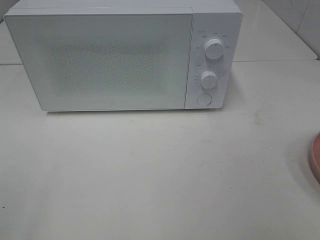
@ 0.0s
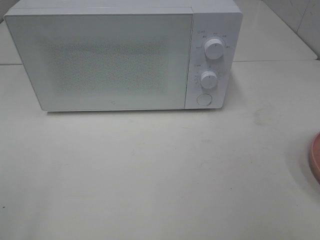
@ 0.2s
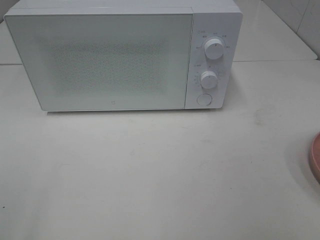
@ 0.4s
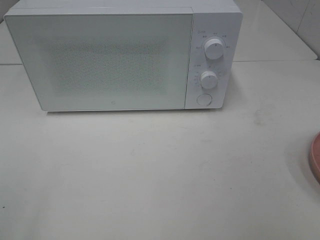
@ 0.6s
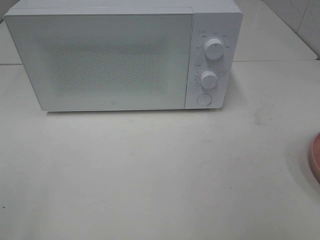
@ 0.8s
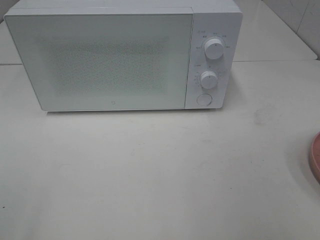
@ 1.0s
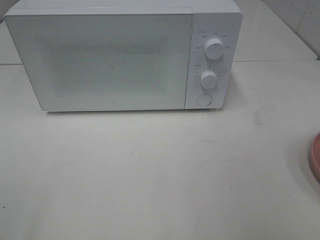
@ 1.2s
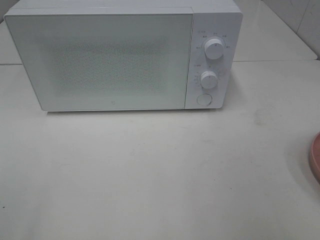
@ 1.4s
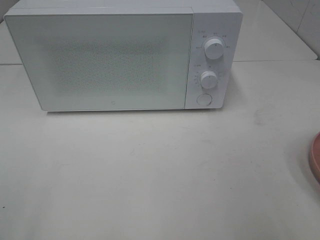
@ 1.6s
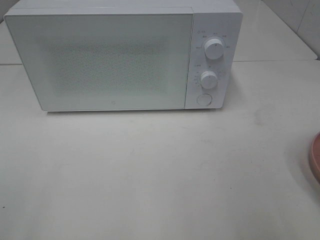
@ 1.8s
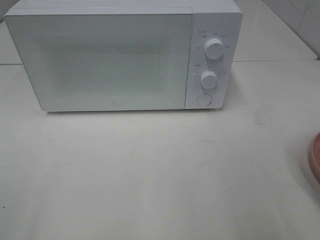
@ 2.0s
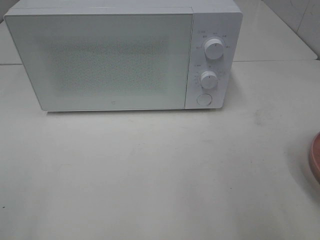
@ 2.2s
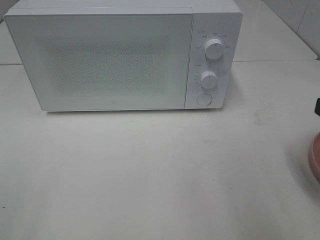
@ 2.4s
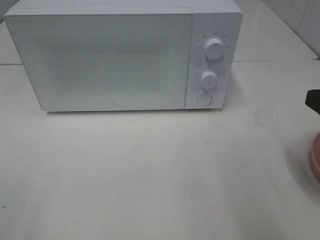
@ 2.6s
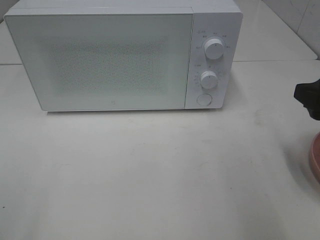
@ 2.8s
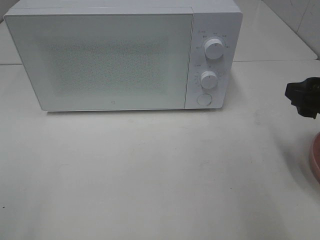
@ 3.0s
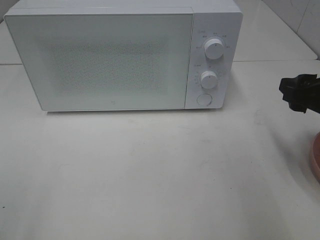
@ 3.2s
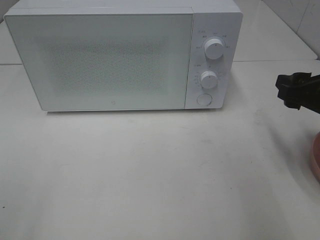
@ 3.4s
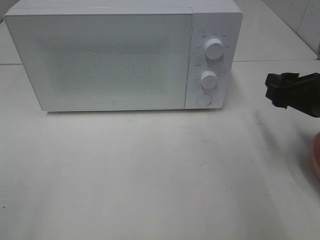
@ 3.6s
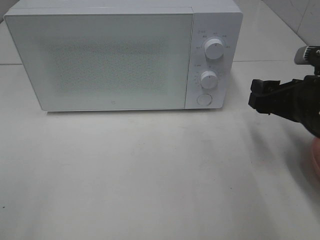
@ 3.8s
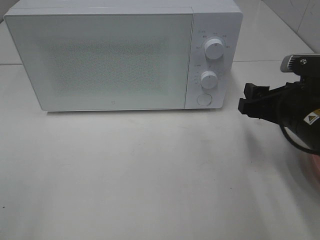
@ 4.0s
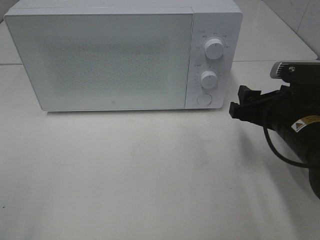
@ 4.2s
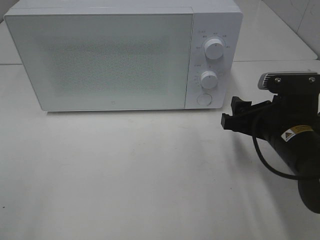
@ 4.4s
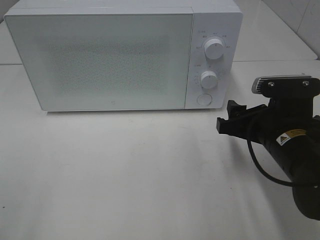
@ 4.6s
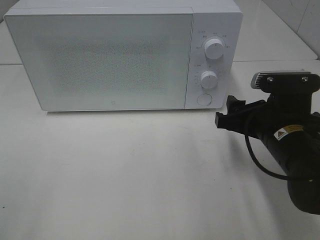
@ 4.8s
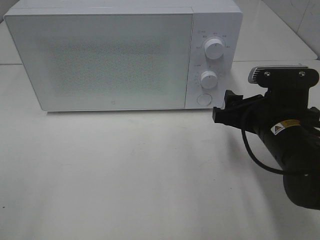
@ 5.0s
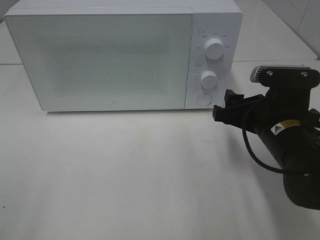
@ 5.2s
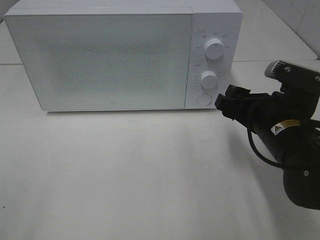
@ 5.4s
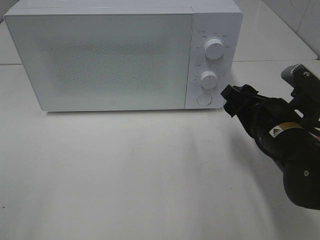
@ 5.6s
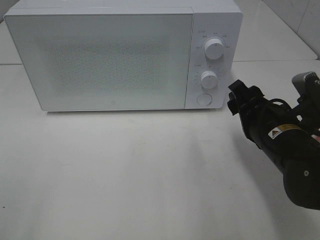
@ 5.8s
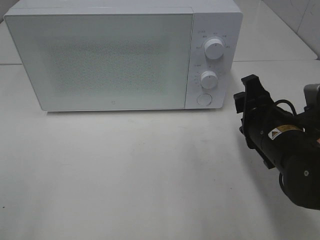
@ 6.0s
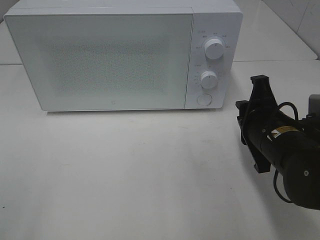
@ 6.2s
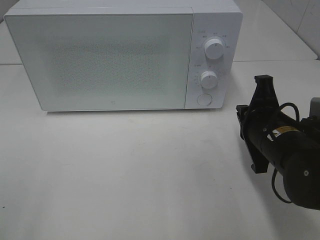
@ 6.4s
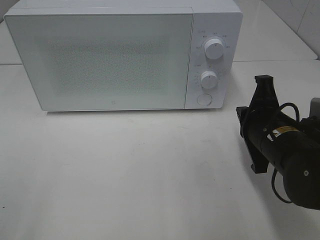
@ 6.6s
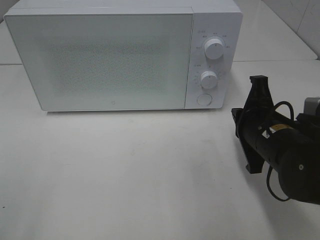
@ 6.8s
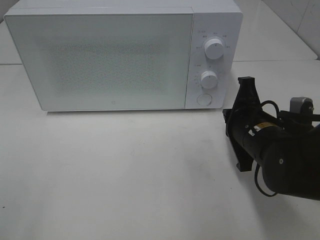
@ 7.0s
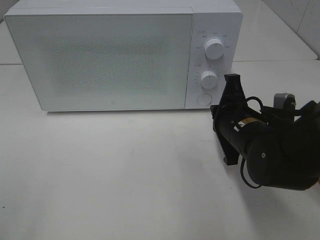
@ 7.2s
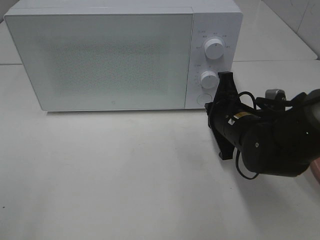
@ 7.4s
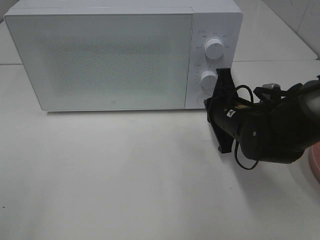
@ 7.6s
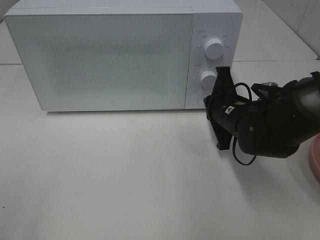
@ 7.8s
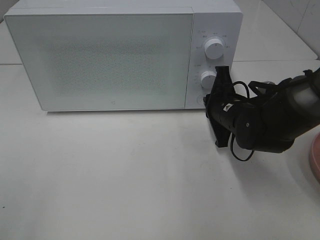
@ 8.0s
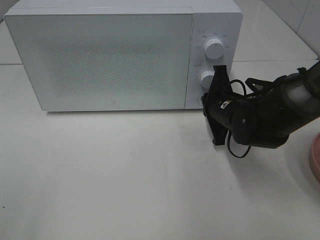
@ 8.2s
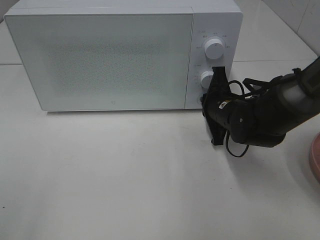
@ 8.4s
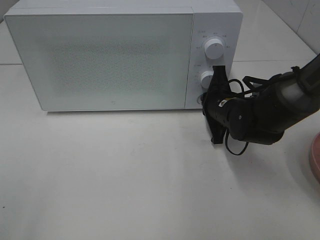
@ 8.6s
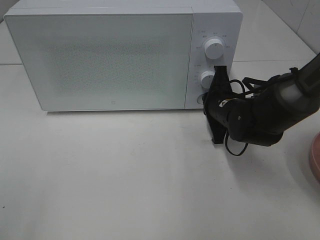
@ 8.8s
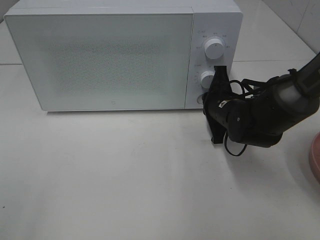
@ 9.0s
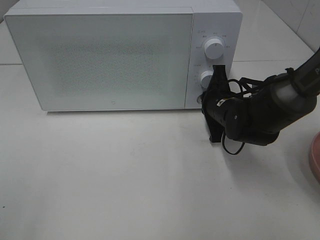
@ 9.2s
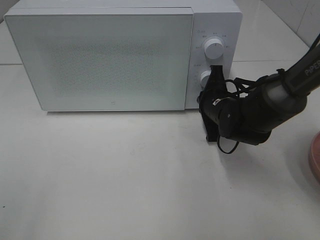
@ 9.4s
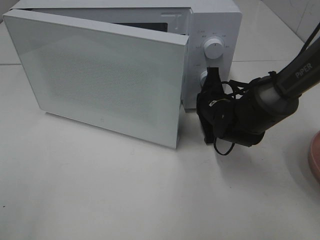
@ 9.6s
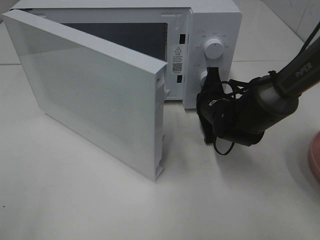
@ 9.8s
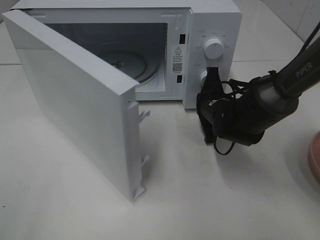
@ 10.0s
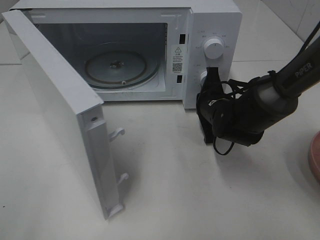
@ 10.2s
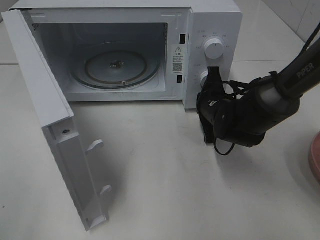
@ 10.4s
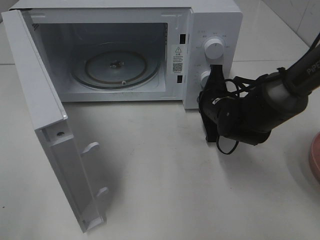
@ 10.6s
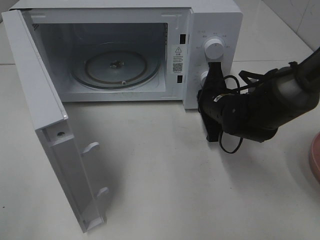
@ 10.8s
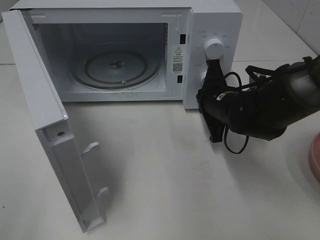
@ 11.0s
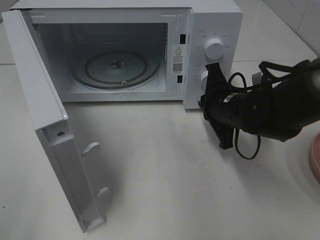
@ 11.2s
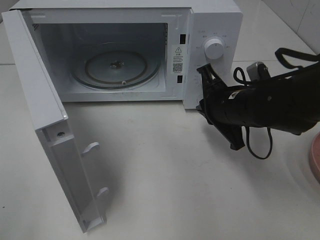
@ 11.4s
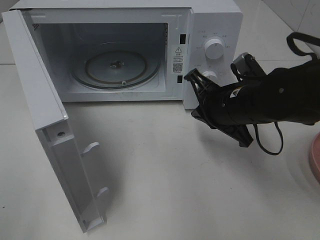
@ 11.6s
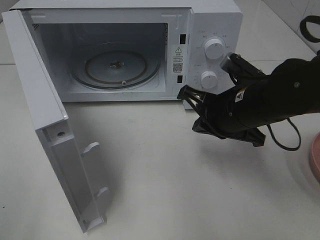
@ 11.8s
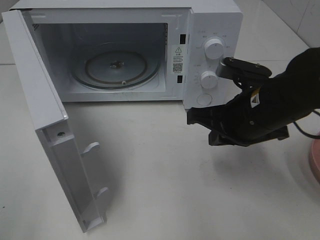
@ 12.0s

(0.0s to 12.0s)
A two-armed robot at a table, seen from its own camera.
Task of the whole recording: Heat the burger.
Step, 0.0s - 11.0s: Right hand: press the switch.
1.6s - 3.0s: The right gripper moves forward and downward, some 15 cm.
3.0s - 4.4s: The right gripper is displaced to the left and downward by approximately 10 cm.
6.0s - 7.6s: The right gripper moves forward, about 5 cm, and closes its fingers.
7.6s - 9.0s: The grippers move only a little.
10.4s - 12.0s: The right gripper heads backward and upward, covering about 15 cm.

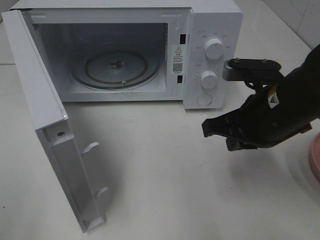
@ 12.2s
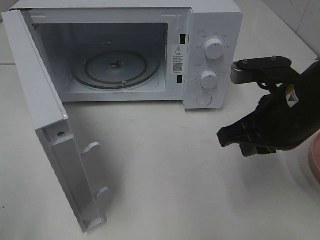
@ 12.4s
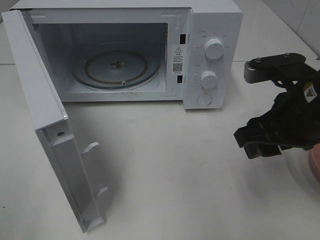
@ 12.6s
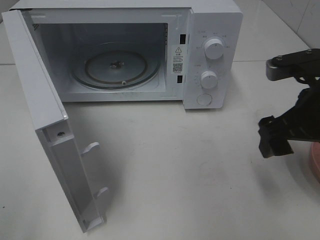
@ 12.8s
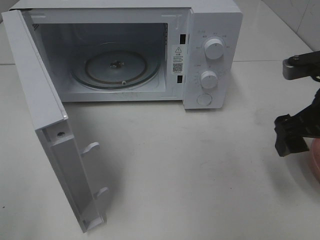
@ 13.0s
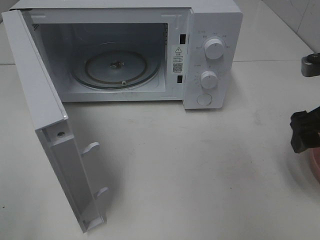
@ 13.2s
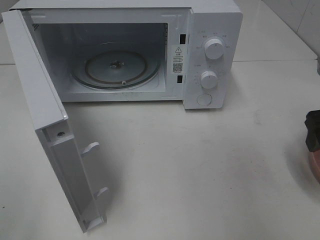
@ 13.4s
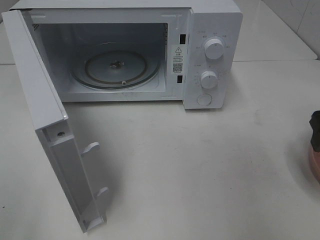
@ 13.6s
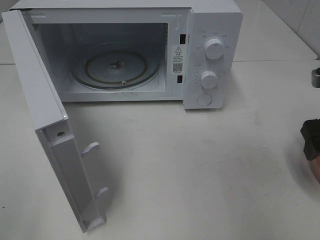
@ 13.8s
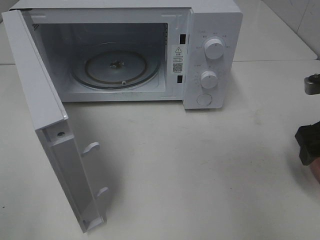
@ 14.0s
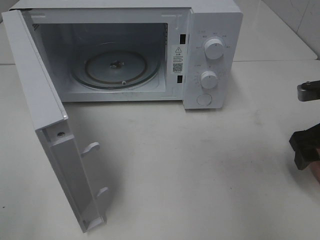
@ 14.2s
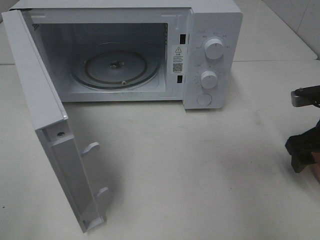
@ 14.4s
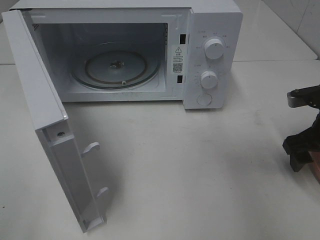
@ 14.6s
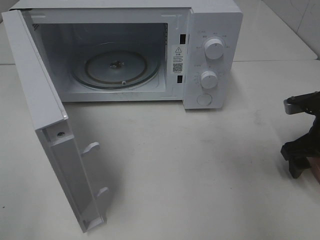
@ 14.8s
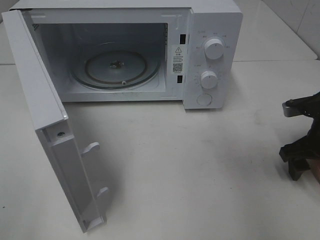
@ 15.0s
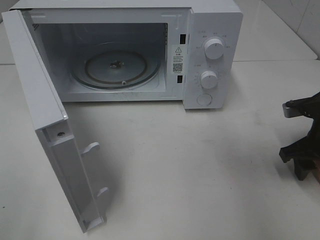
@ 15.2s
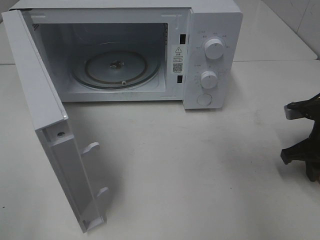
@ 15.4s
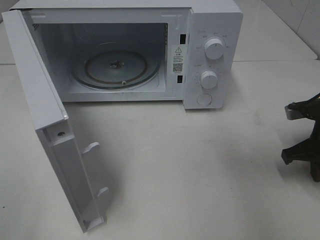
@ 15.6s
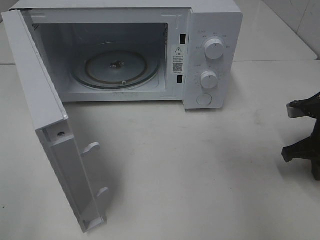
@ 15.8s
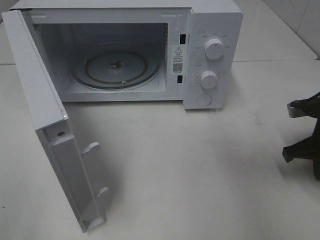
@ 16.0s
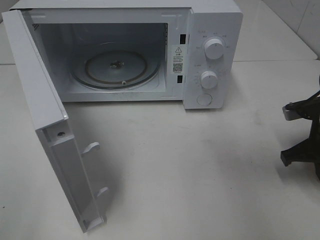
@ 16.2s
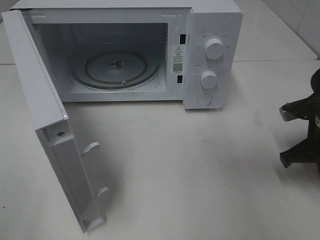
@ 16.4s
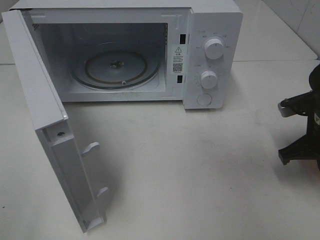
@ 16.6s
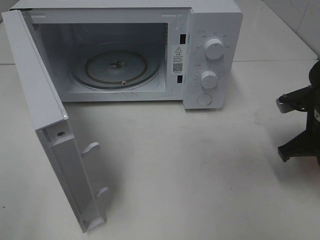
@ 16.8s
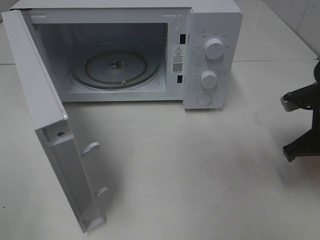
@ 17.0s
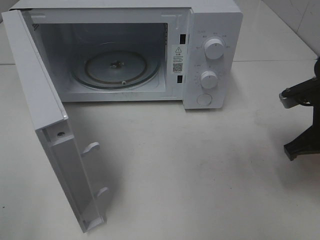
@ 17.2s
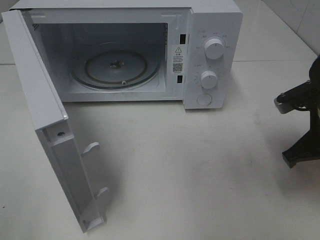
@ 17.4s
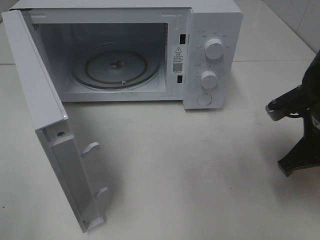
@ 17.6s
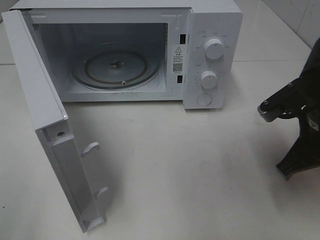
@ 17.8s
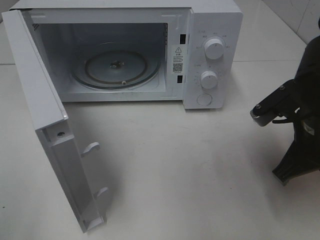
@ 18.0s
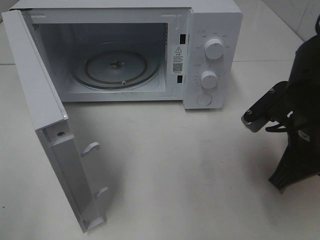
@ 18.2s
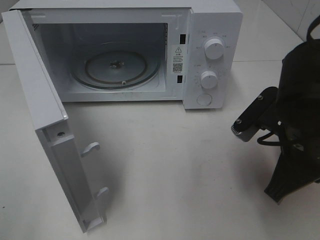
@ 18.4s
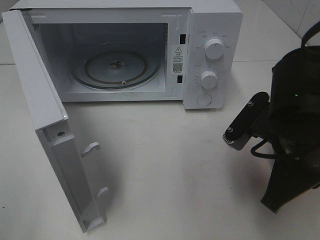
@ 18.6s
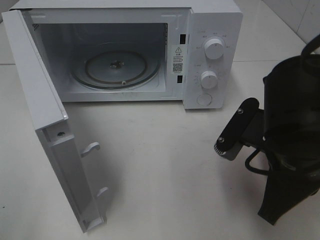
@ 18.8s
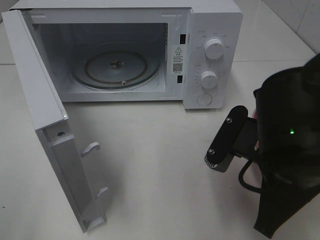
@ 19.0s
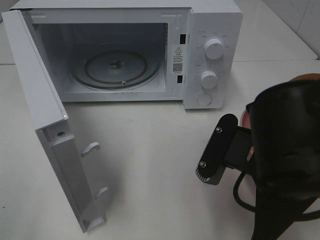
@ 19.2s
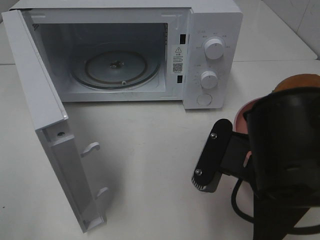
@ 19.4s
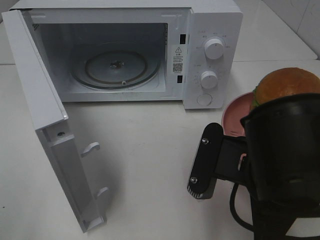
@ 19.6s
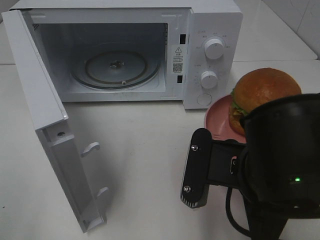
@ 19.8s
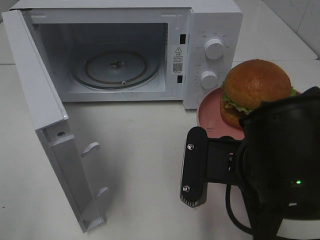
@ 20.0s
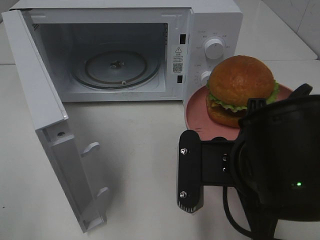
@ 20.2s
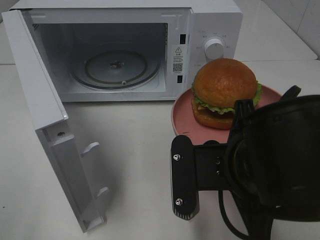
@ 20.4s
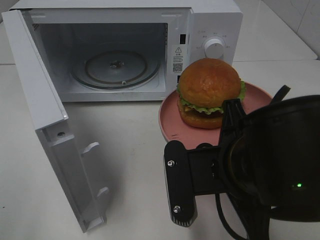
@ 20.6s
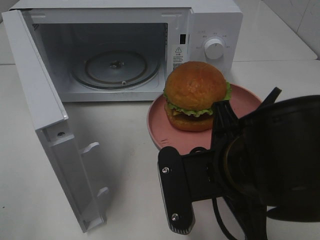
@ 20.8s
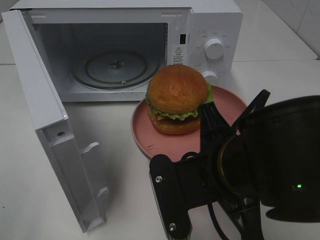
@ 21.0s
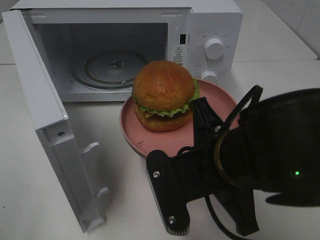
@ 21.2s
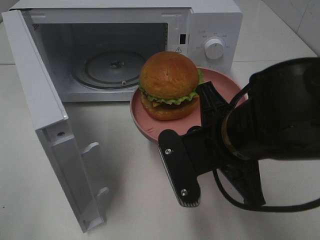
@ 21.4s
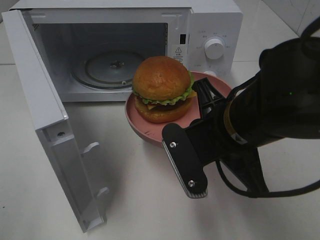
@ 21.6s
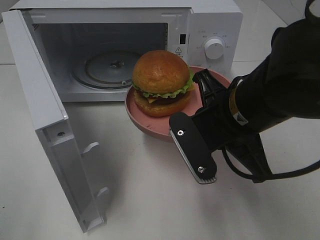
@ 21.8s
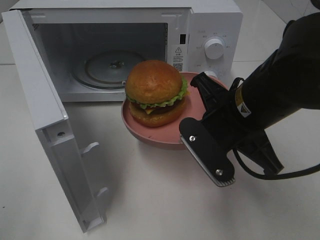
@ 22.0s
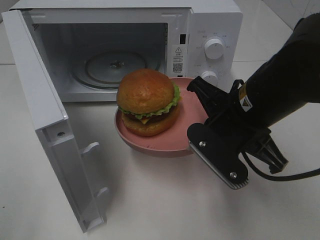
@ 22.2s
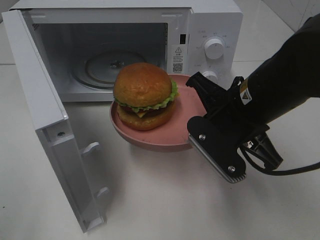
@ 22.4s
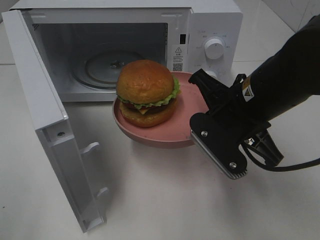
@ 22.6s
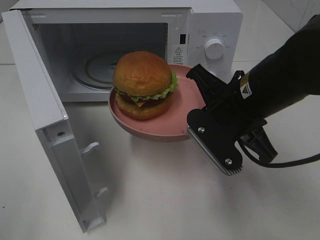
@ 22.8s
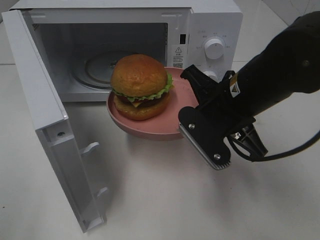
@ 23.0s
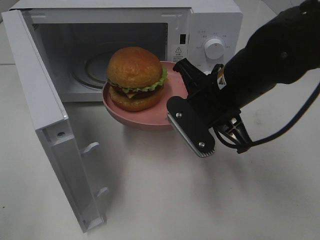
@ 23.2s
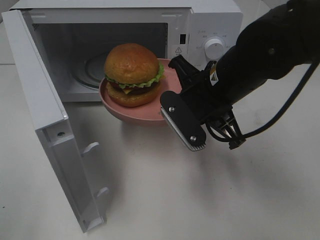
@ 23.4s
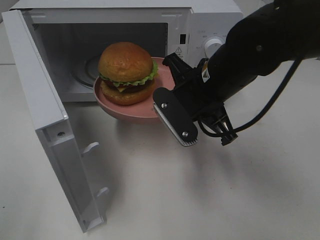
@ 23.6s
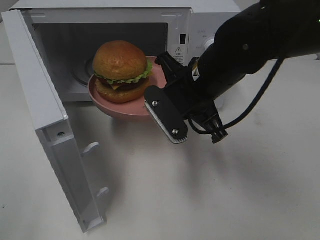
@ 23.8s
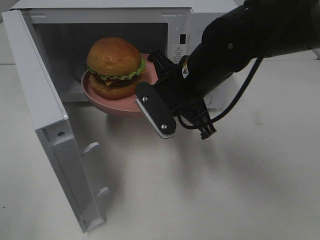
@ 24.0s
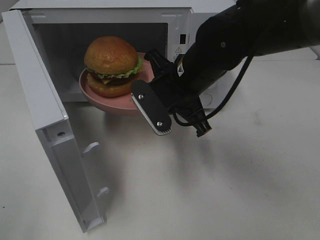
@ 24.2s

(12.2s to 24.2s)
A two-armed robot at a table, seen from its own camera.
Task of the whole recording: Heat the burger.
Step, 12.2s - 16.4s: Right hand: grab the plate with the hamburger.
12.2s - 13.8s: The right gripper shifts roughly 15 cm to the right, and opens.
13.8s - 15.2s: The right gripper is displaced downward by approximately 10 cm.
15.2s - 16.6s: The right gripper closes up.
16.6s - 18.2s: The right gripper heads to the left, backward and upward, covering approximately 10 cm.
18.2s - 19.8s: The right gripper shifts about 10 cm to the left and backward.
21.2s - 22.6s: The right gripper travels forward by some 10 cm.
22.6s - 24.2s: The right gripper goes approximately 10 cm forward and to the left.
